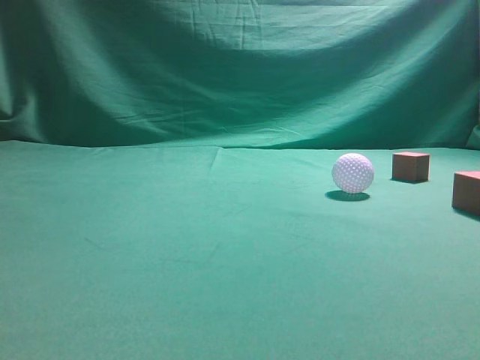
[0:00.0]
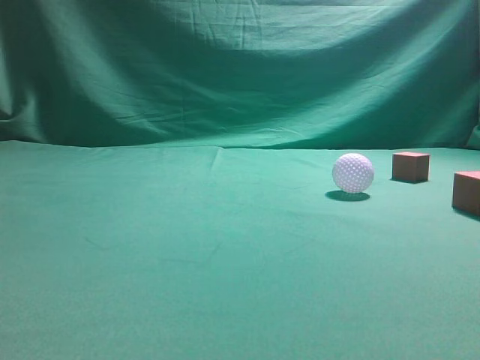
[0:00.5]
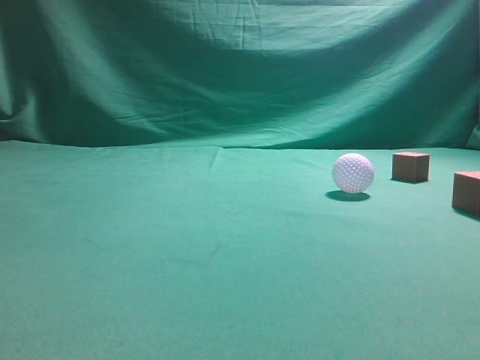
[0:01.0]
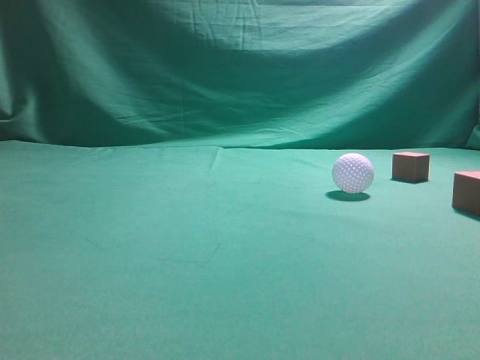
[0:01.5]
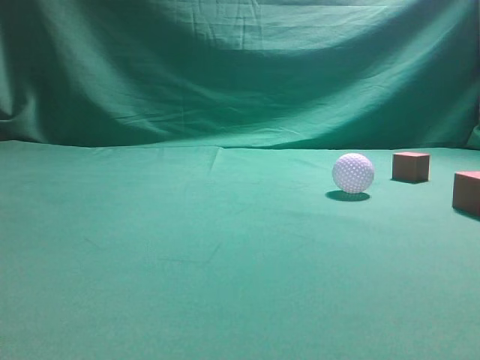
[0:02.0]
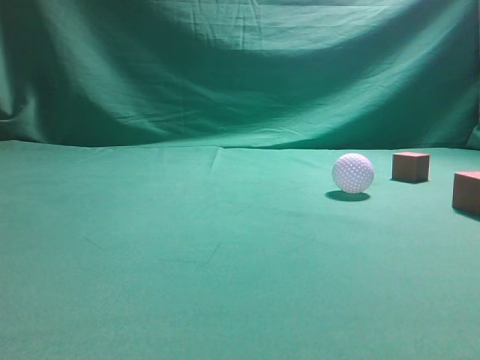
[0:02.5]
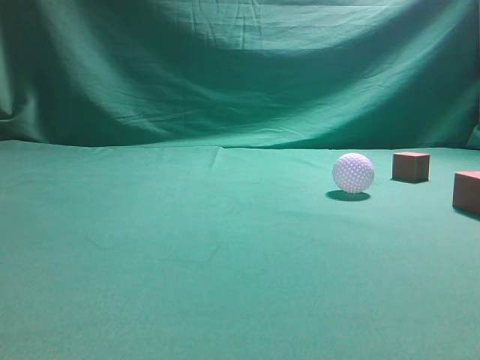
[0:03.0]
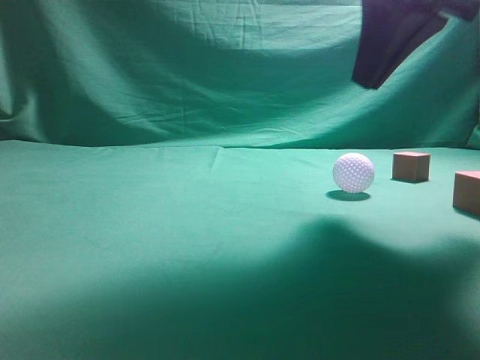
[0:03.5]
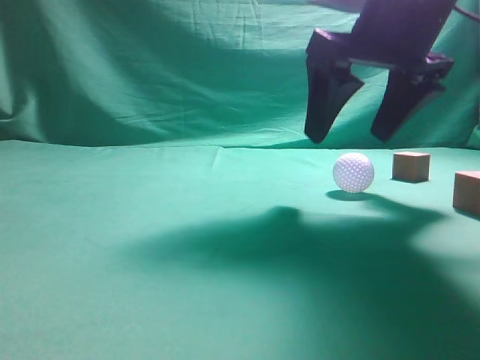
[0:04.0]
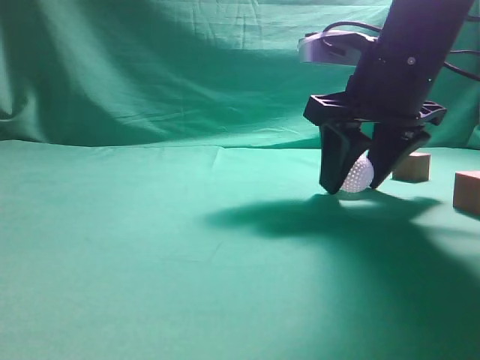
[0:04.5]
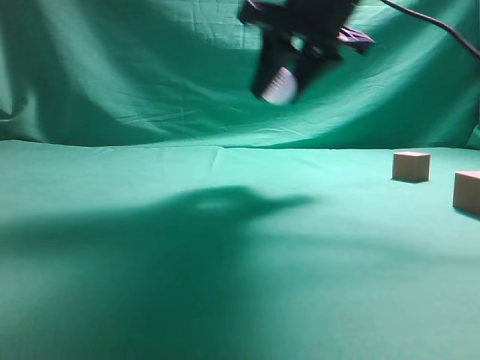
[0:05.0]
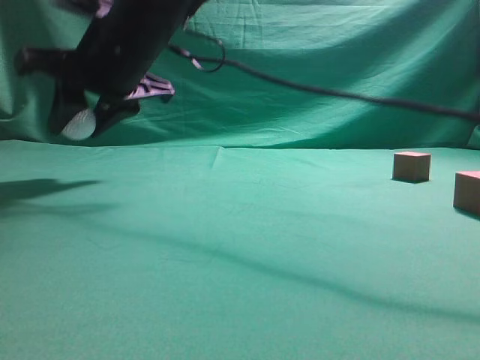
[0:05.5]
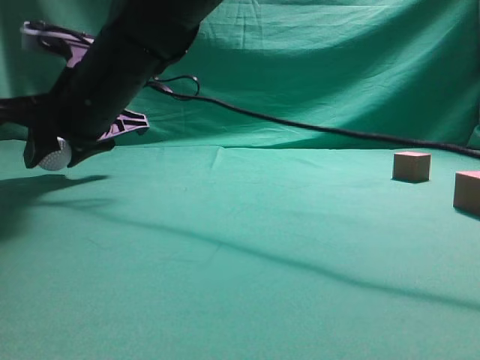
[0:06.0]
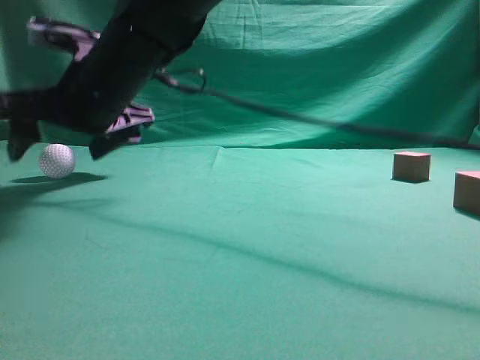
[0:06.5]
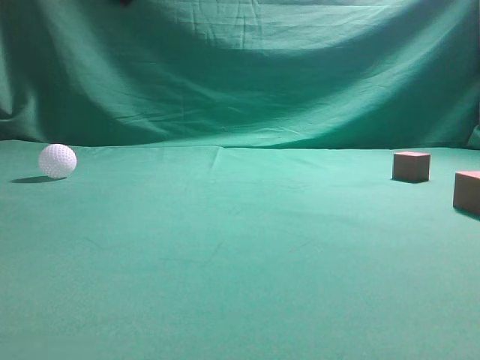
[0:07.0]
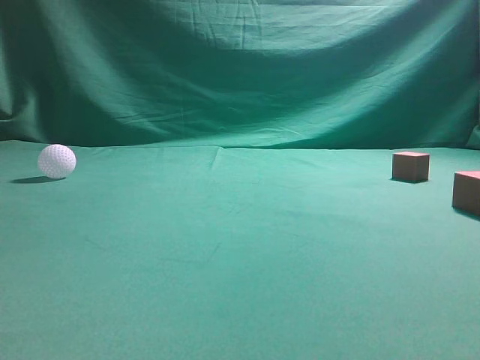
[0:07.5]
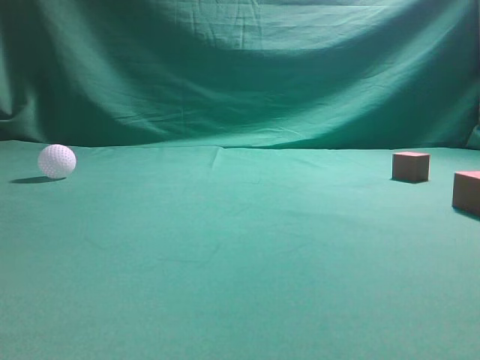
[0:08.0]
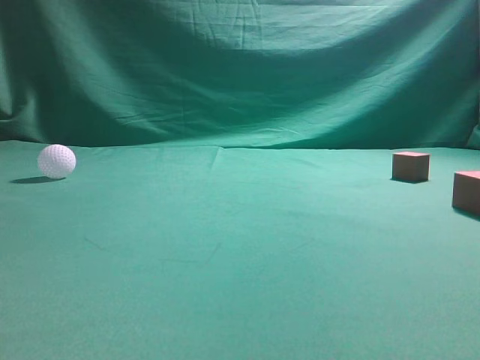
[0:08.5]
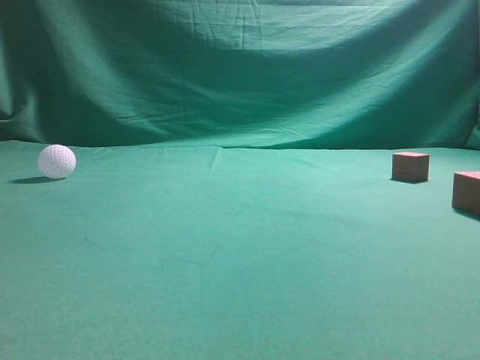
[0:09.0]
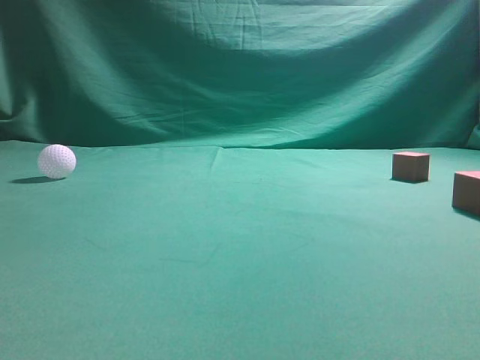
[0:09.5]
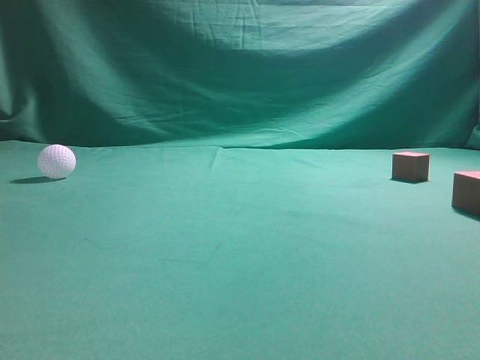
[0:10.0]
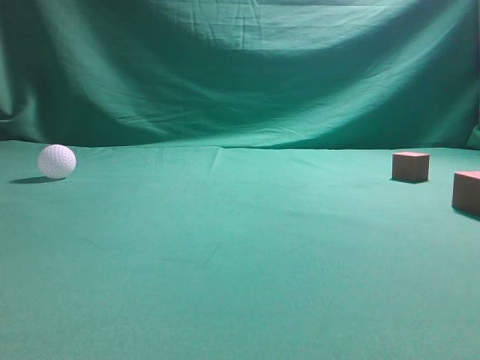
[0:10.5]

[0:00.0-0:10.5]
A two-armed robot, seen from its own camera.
Step, 0:00.0 to 0:04.5: Grasp the spherical object on the right side.
0:02.0 to 0:04.0: The right gripper travels forward and to the left by roughly 30 cm, and opens its fingers.
0:04.0 to 0:06.5: The right gripper moves to the left, roughly 25 cm, and closes and opens again.
0:06.5 to 0:08.5: The right gripper heads to the right, backward and upward, covering roughly 50 cm, and closes its fingers.
